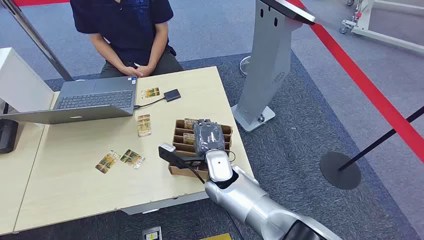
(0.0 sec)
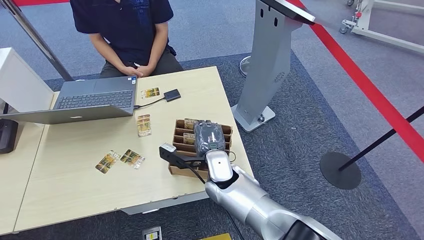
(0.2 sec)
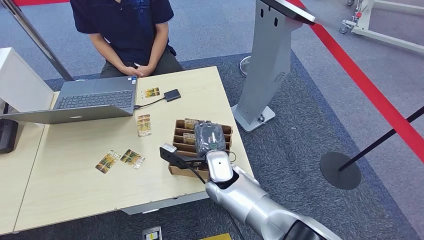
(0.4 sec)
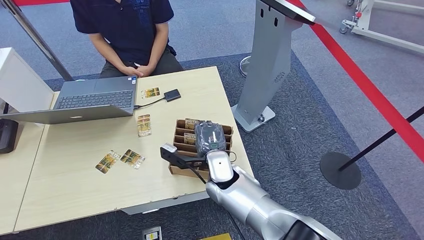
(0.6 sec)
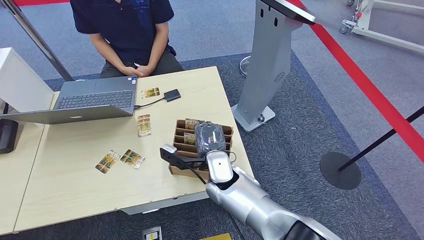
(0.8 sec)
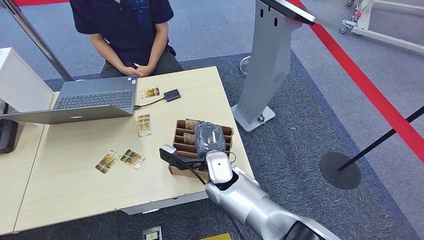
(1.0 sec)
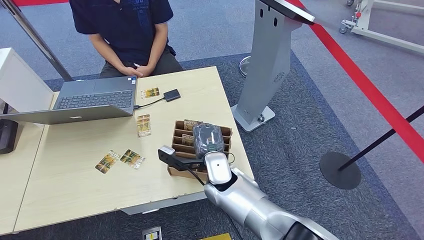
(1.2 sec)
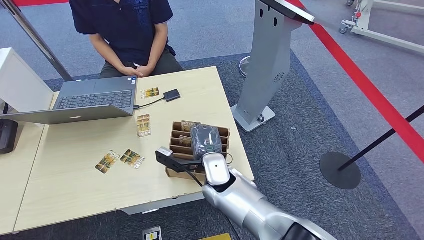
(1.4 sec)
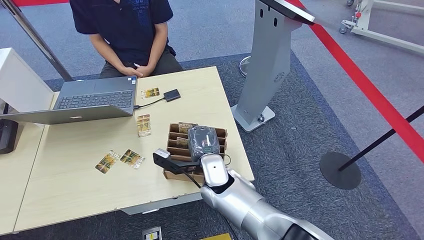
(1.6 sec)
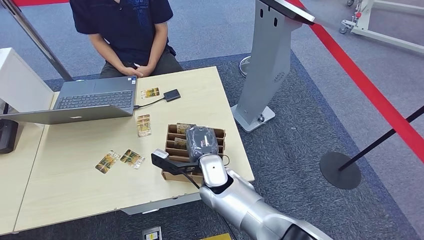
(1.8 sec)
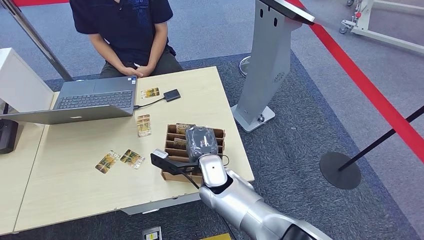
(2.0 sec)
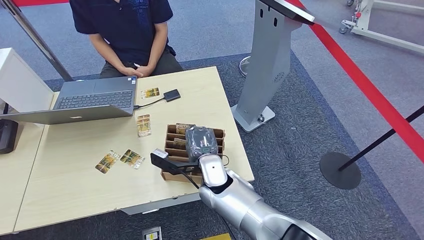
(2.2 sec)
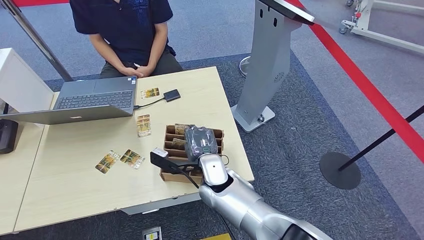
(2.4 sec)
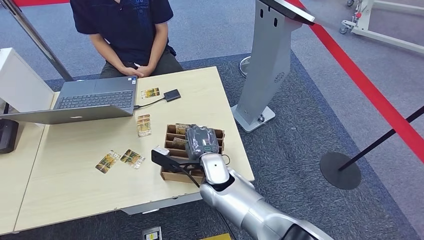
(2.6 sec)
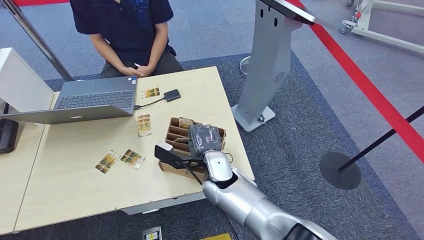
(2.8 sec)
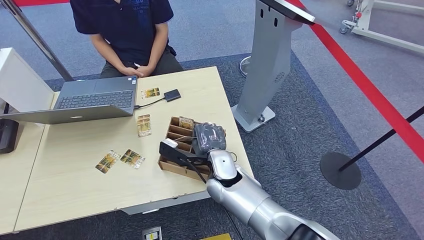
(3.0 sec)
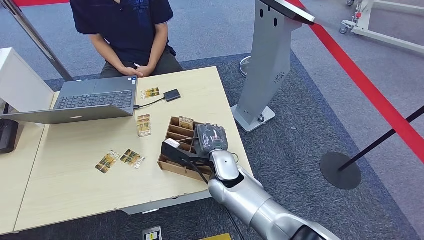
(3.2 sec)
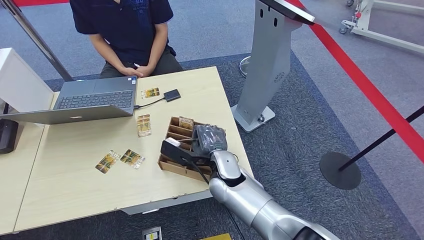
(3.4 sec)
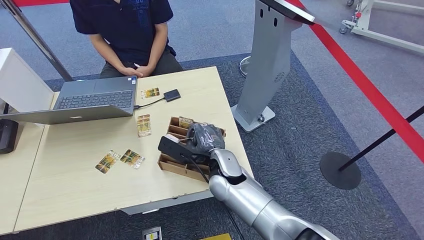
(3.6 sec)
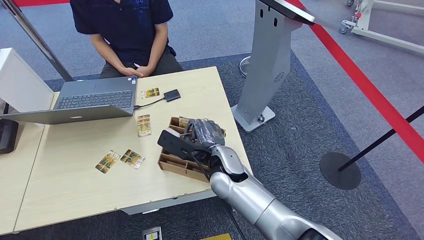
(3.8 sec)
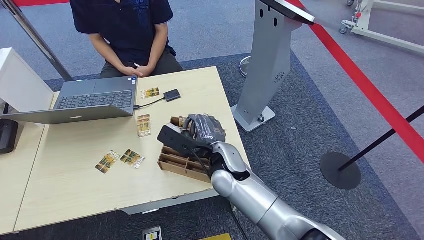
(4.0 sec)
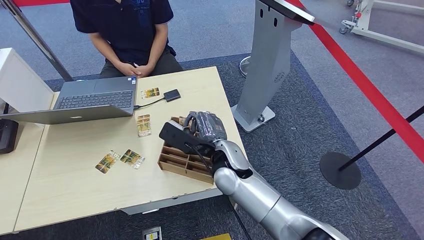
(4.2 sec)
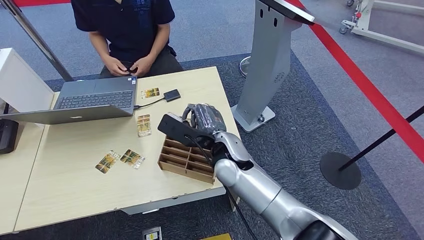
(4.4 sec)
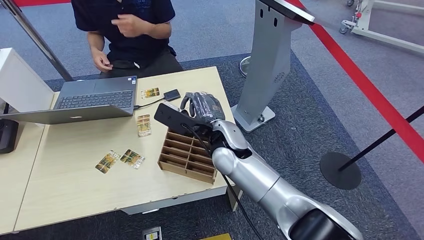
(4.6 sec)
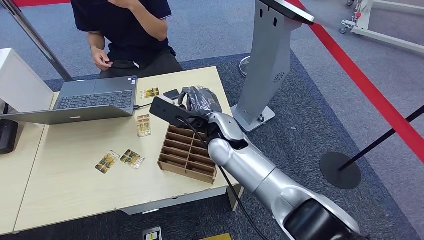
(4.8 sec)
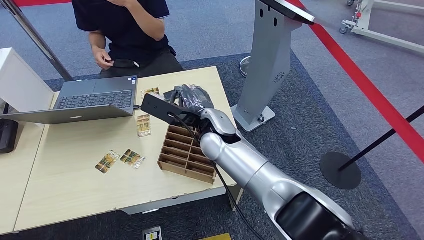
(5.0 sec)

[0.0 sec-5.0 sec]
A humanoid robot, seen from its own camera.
Step, 0.0 sec to 5.0 sec: Pick up the room card from the card holder.
1.6 sec to 3.4 sec: The hands move only a little.
3.4 sec to 5.0 sec: The right hand shifts about 10 cm upward and forward.
